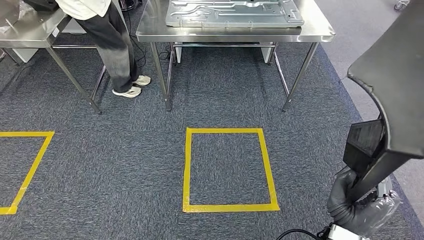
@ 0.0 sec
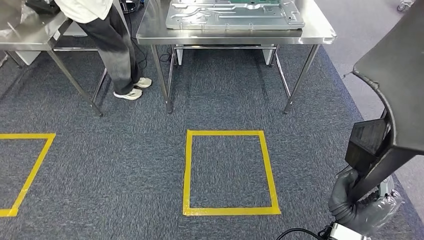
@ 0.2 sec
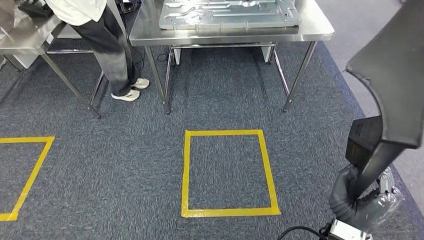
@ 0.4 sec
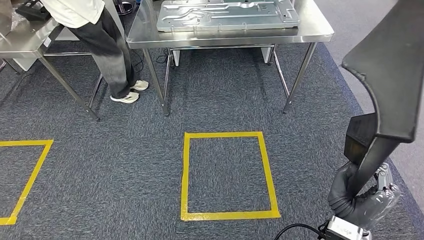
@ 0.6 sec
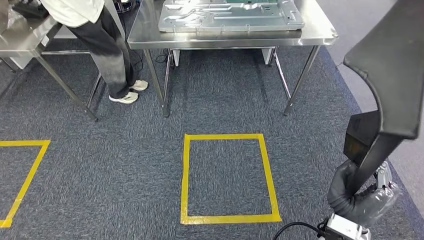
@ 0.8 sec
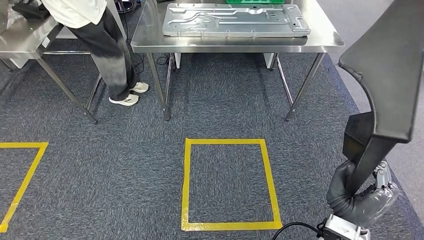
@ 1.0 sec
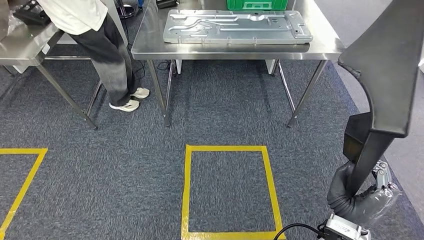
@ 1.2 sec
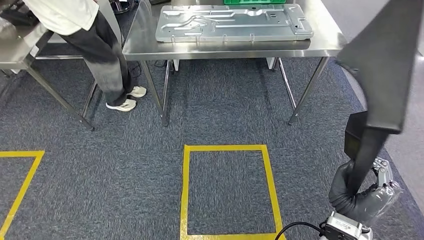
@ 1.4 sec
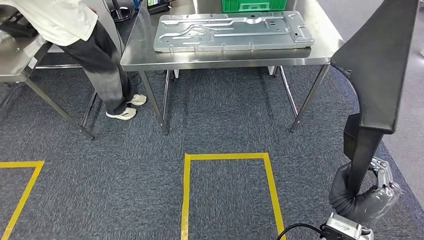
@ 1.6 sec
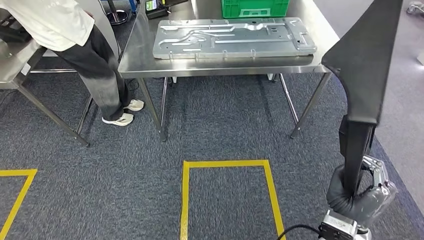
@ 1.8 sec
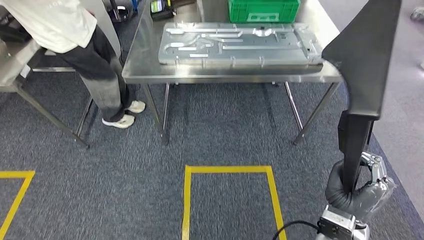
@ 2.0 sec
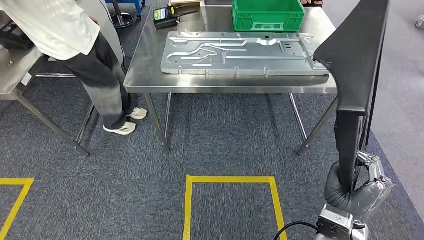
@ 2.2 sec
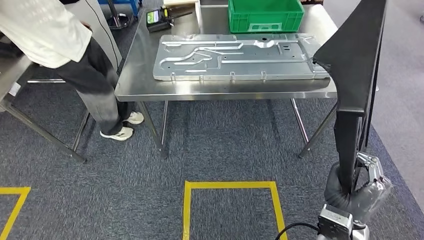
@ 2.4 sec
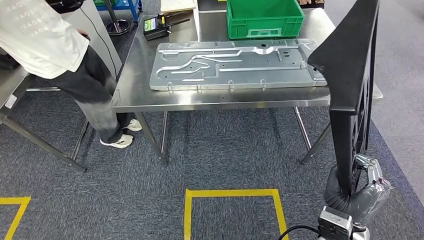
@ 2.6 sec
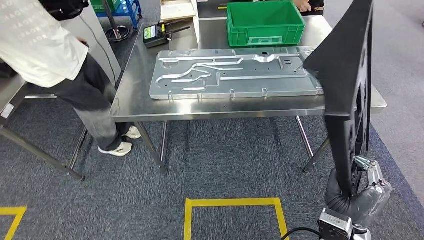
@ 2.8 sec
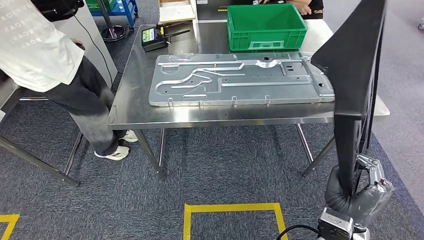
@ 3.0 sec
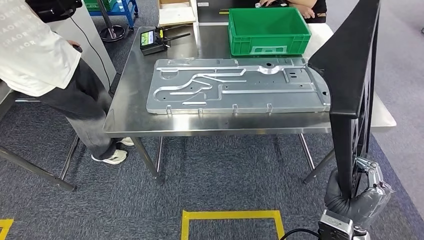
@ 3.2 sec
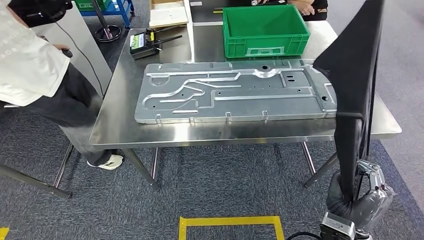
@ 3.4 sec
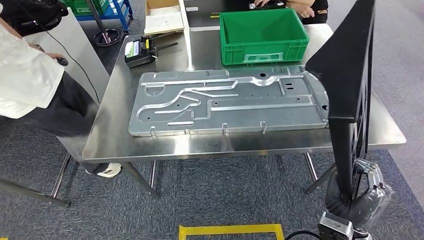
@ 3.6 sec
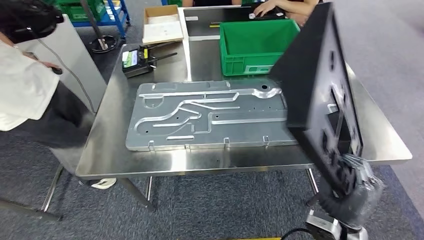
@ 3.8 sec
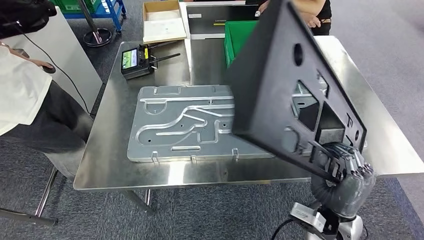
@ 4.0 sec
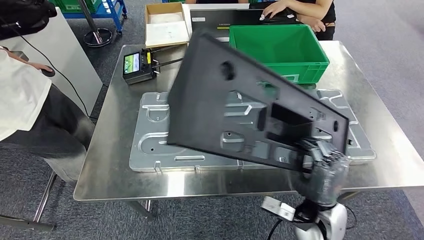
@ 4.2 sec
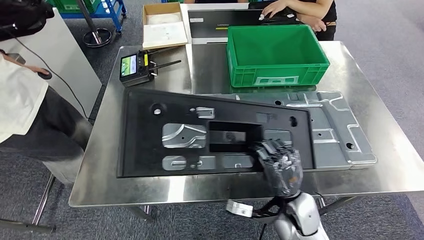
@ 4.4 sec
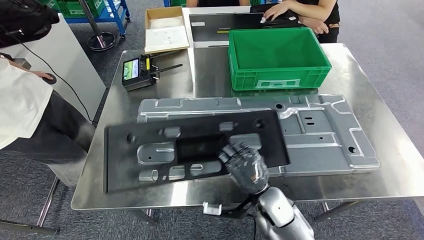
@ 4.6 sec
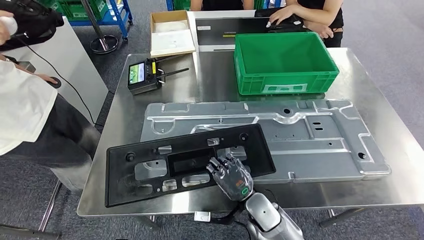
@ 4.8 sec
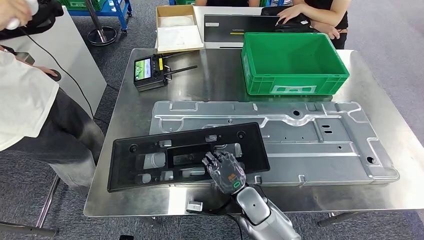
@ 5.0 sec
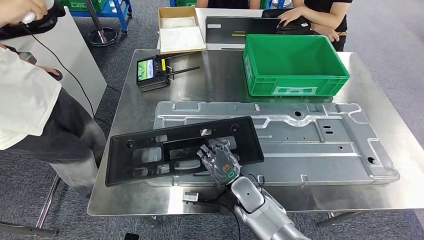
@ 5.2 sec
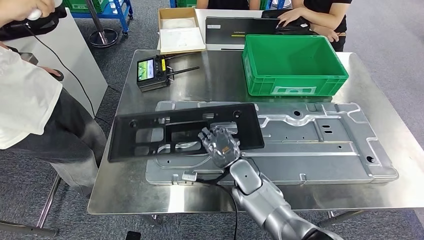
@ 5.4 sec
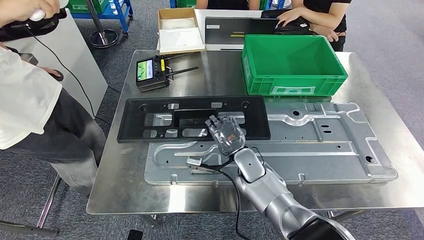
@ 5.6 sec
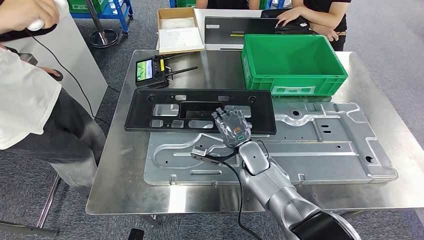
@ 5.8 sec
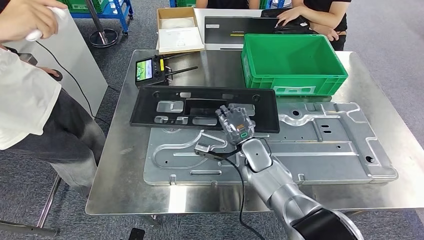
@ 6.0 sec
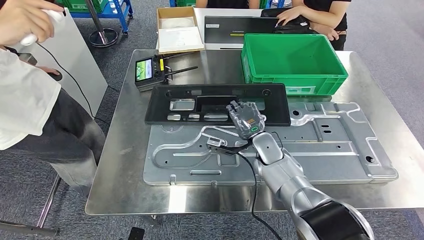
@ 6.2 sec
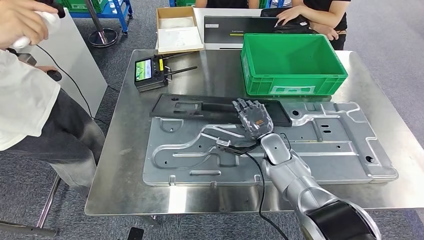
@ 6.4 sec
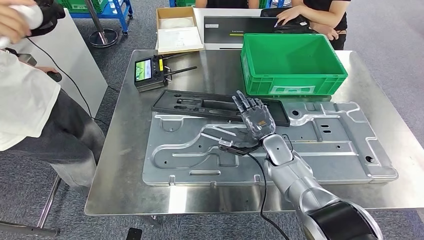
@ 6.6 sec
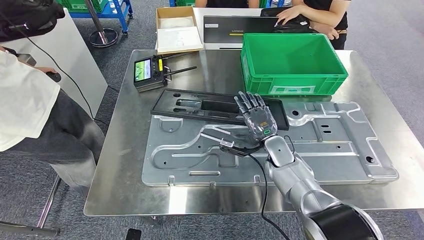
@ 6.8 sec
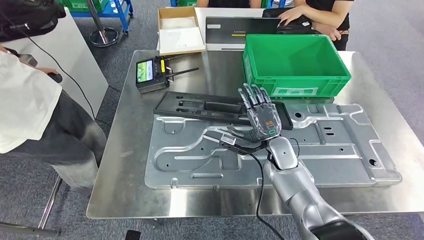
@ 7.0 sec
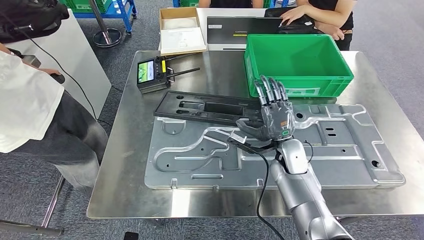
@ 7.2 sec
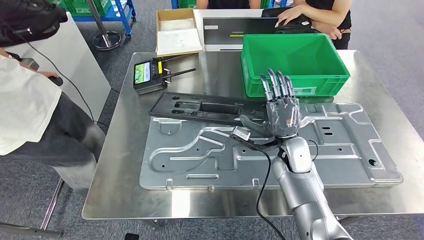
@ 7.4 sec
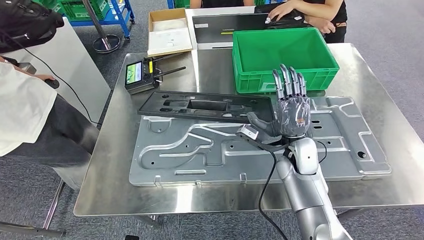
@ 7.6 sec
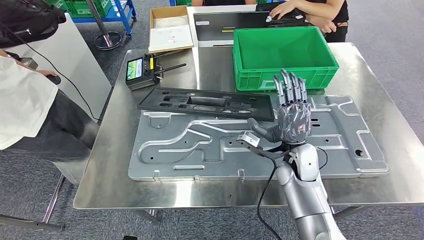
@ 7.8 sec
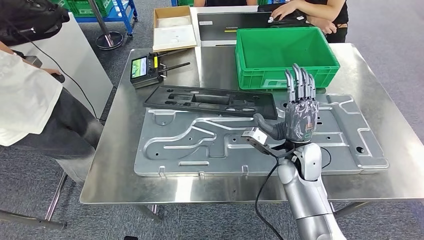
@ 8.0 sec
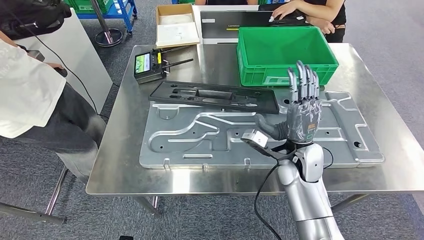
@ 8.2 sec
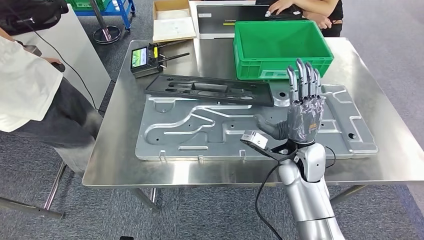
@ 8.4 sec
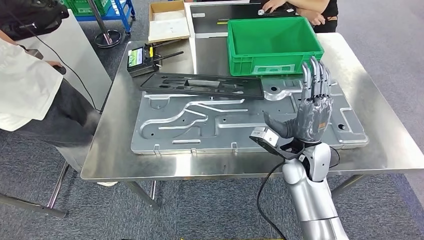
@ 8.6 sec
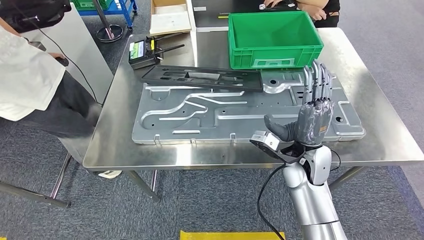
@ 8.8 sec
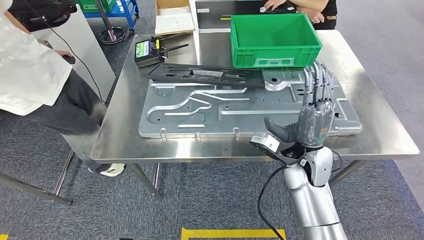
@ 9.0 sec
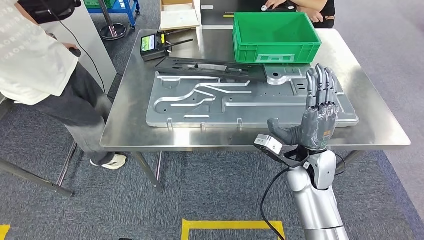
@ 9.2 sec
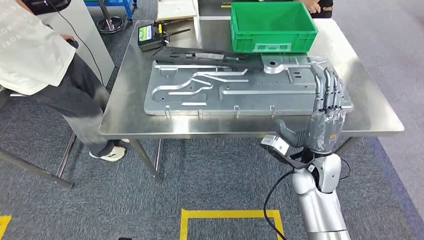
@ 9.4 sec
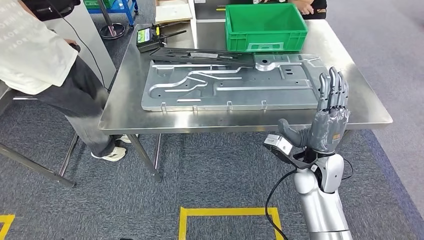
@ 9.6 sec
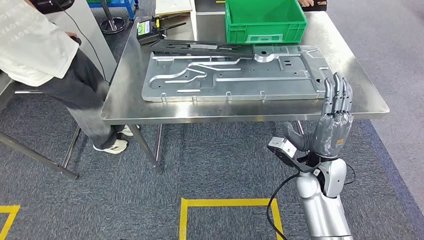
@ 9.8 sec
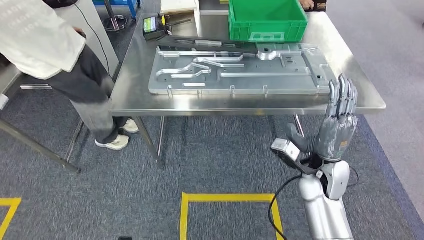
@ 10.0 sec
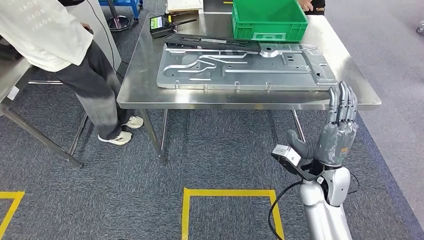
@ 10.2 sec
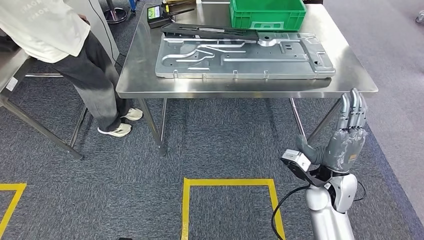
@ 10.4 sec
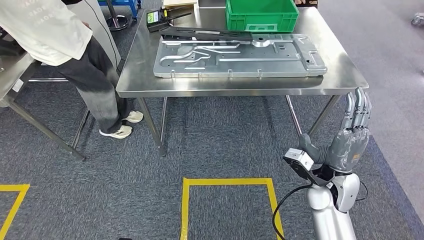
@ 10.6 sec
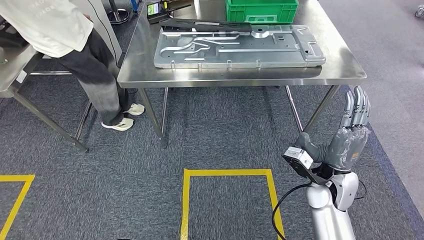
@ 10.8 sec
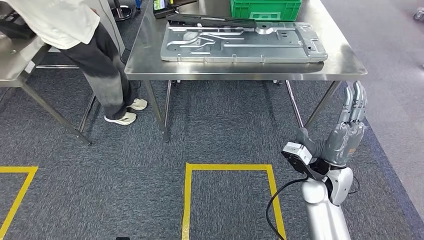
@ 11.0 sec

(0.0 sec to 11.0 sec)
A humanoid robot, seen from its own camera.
Step, 0.0 sec - 4.0 sec: Move the large material to the workbench.
Step, 4.8 sec - 9.4 sec: Insert the large material into the corresponding slot on the workbench.

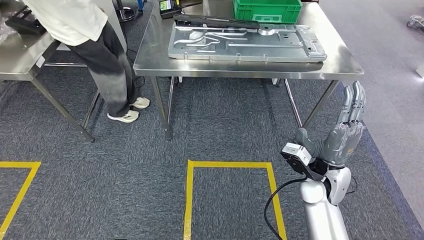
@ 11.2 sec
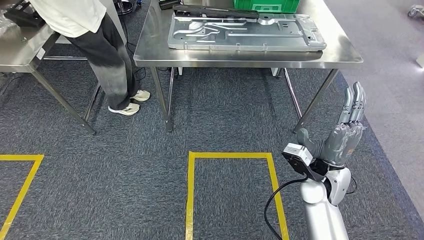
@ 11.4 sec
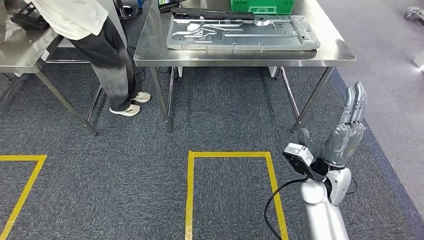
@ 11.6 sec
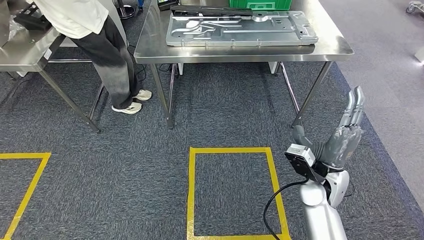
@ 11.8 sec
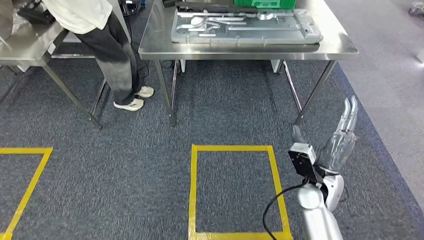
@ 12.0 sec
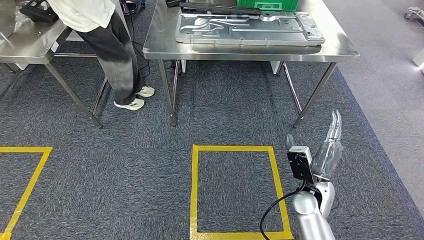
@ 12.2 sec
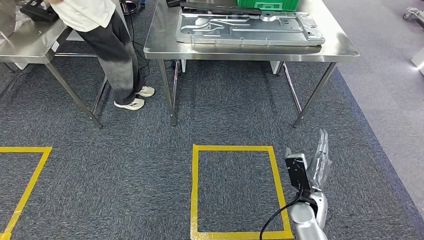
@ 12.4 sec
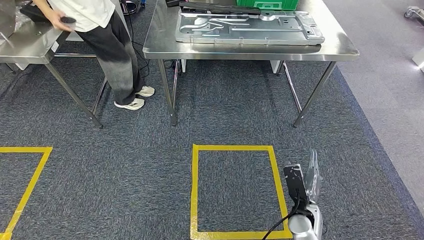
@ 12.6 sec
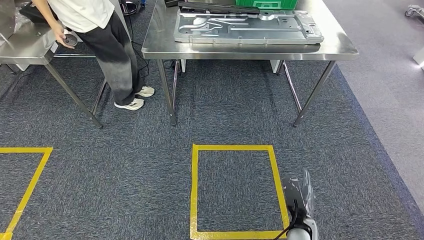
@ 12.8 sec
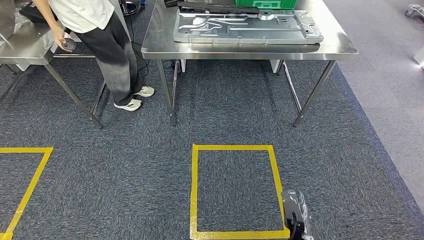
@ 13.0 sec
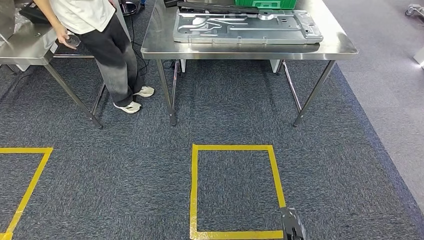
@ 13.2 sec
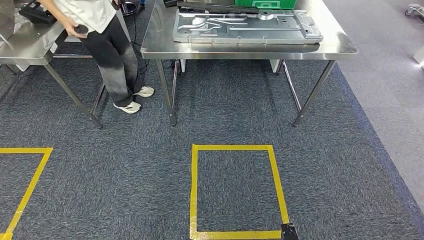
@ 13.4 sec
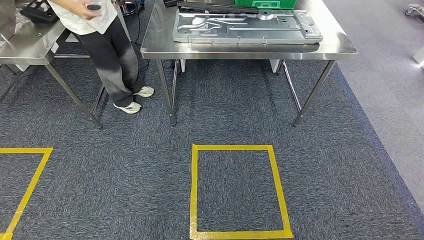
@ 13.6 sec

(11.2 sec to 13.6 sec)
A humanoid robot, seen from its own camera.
Step, 11.2 sec - 13.6 sec: Move to the initial position of the shelf.
12.4 sec - 13.6 sec: The right hand shifts roughly 30 cm backward and downward.
